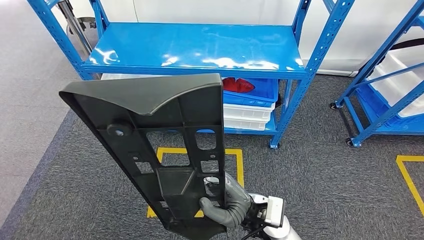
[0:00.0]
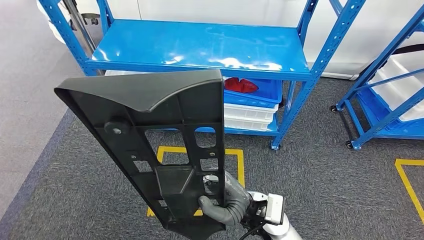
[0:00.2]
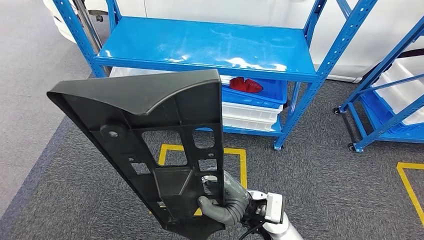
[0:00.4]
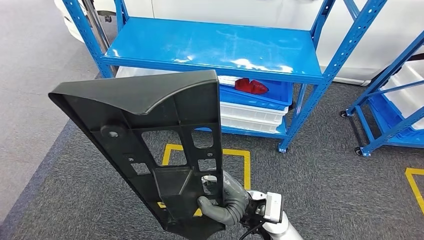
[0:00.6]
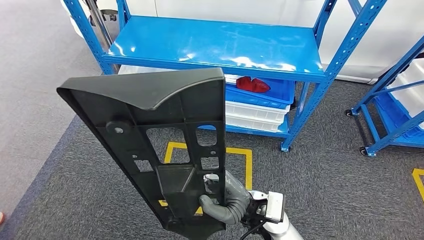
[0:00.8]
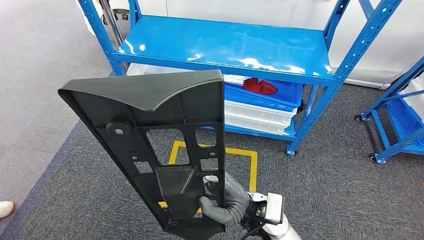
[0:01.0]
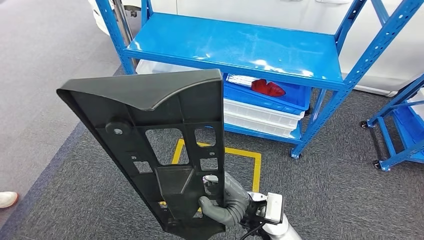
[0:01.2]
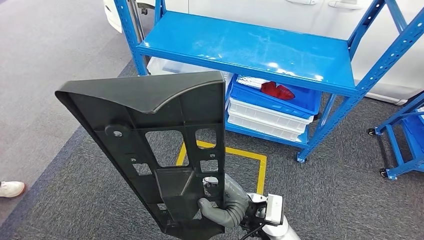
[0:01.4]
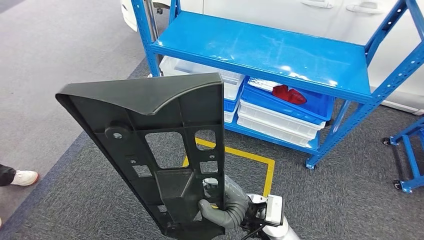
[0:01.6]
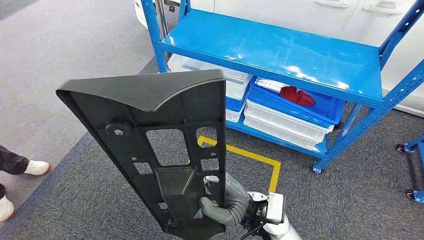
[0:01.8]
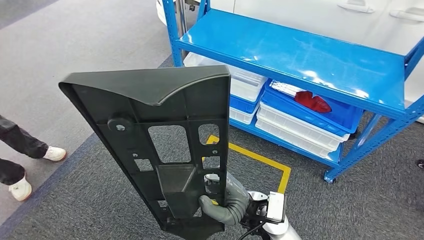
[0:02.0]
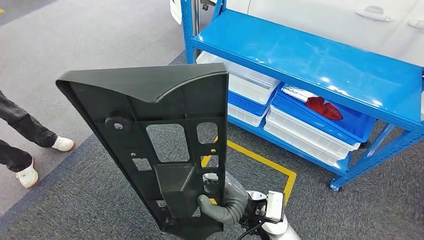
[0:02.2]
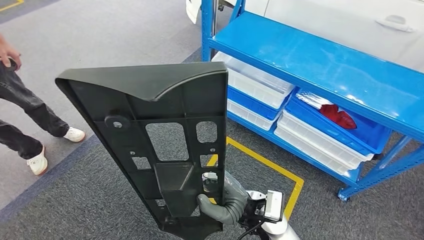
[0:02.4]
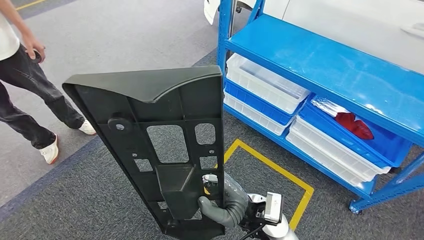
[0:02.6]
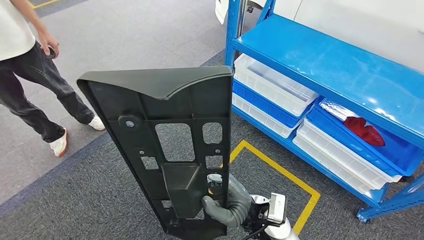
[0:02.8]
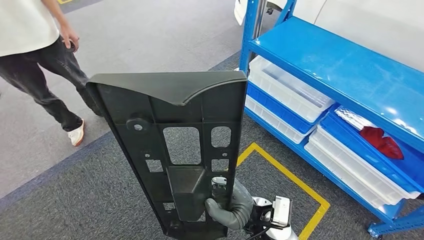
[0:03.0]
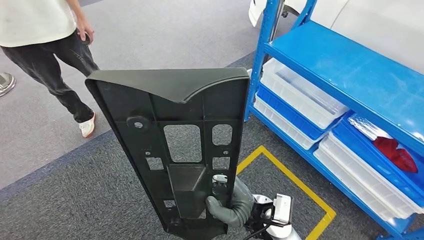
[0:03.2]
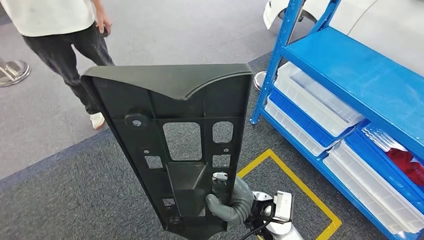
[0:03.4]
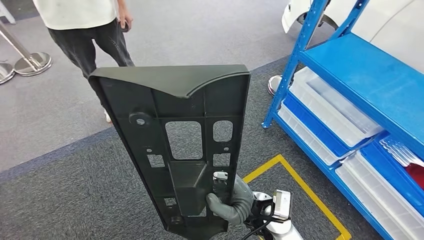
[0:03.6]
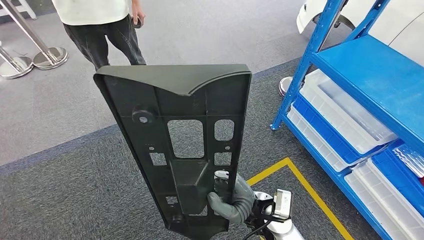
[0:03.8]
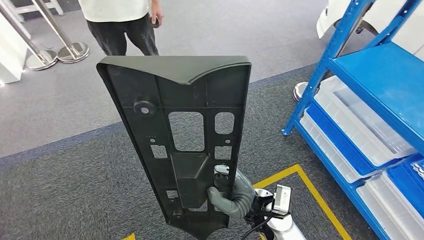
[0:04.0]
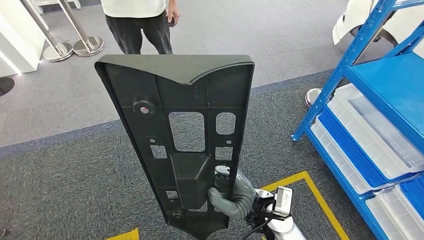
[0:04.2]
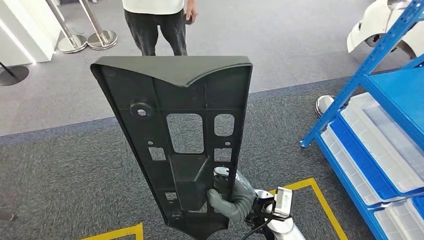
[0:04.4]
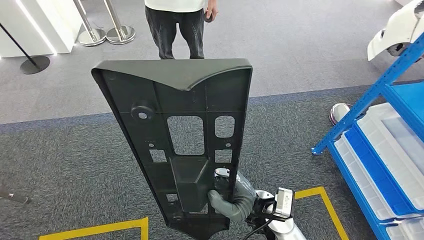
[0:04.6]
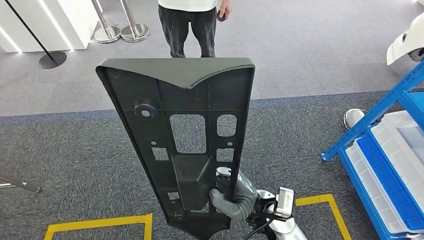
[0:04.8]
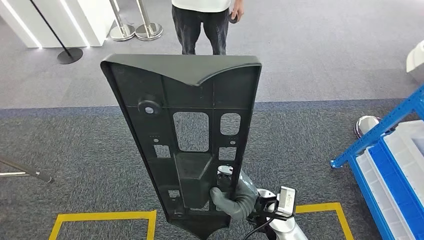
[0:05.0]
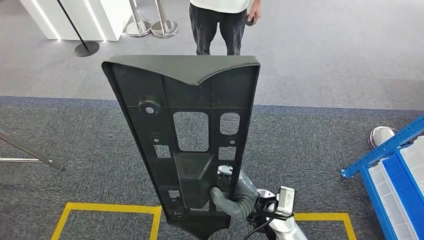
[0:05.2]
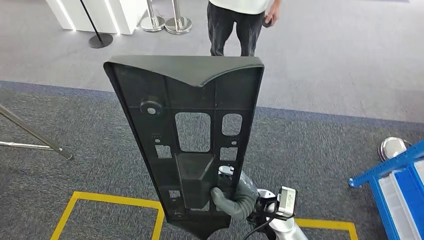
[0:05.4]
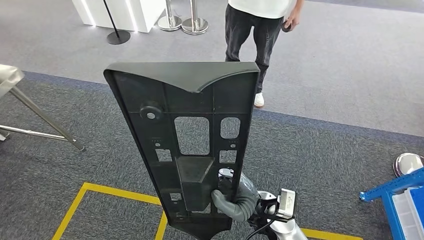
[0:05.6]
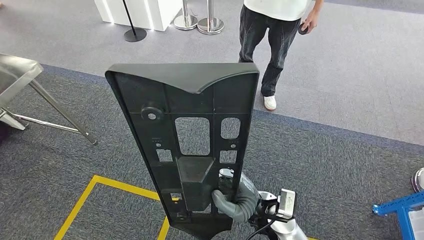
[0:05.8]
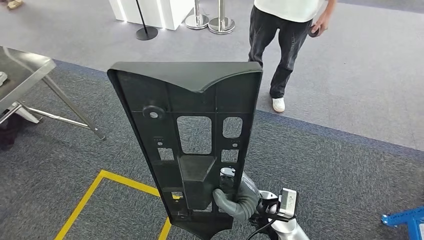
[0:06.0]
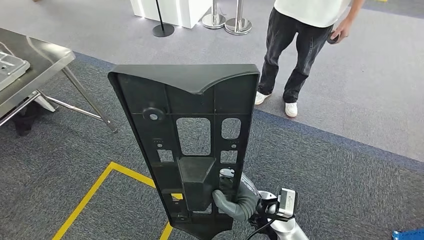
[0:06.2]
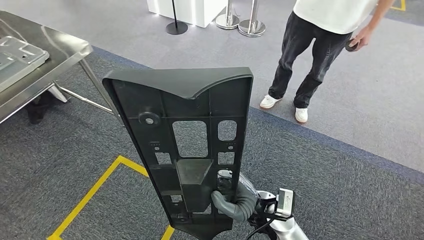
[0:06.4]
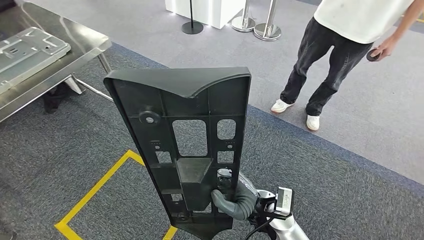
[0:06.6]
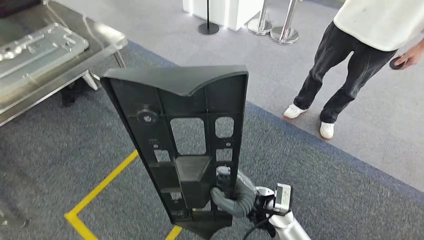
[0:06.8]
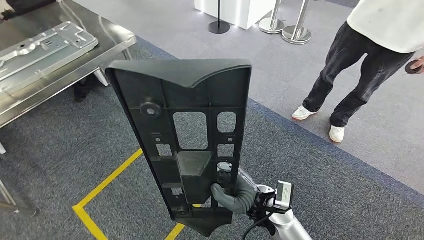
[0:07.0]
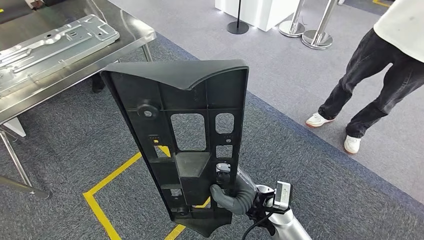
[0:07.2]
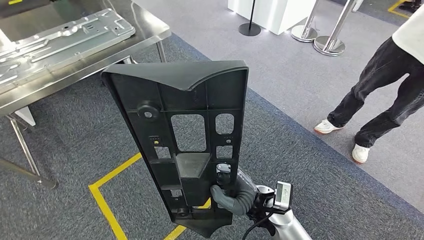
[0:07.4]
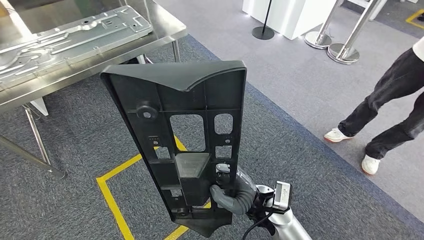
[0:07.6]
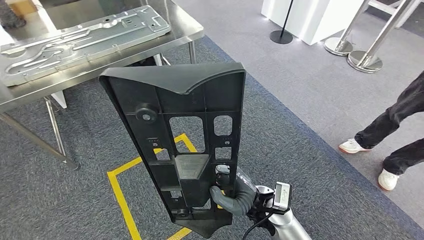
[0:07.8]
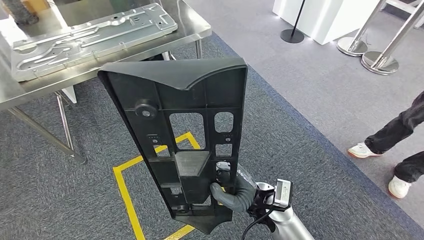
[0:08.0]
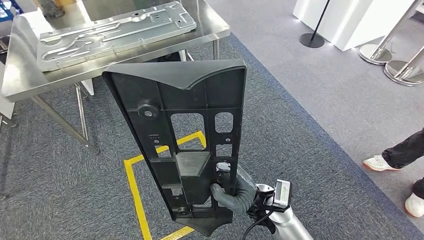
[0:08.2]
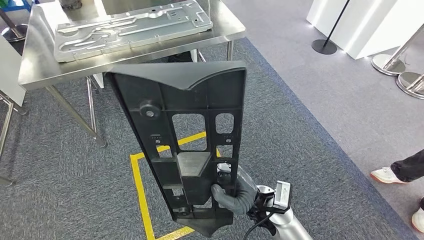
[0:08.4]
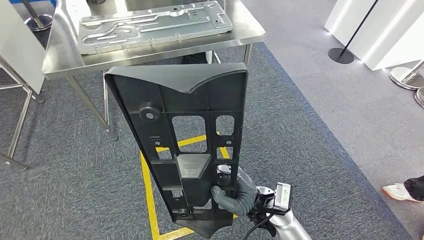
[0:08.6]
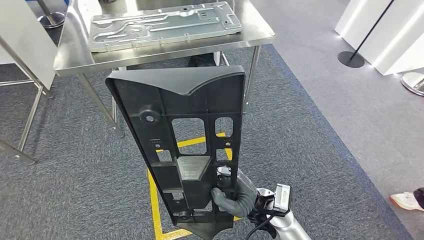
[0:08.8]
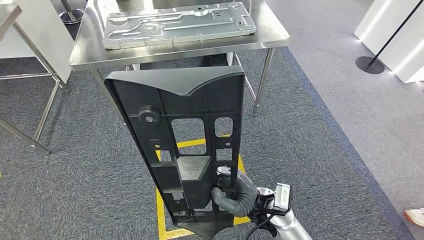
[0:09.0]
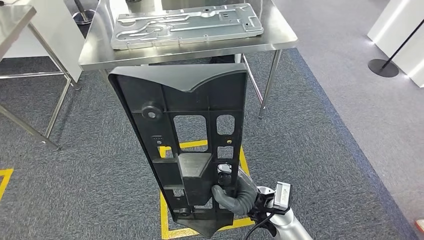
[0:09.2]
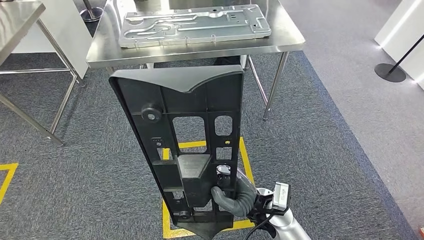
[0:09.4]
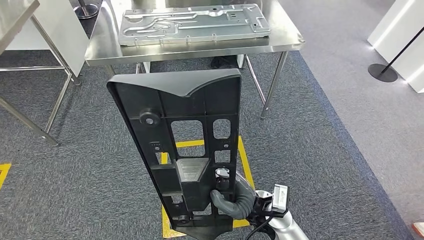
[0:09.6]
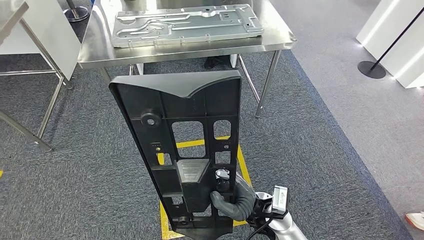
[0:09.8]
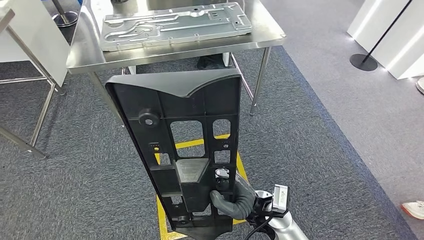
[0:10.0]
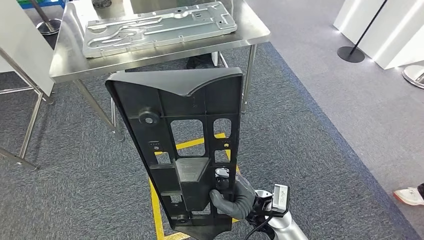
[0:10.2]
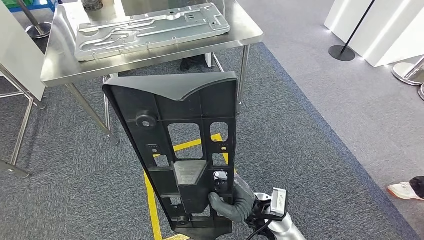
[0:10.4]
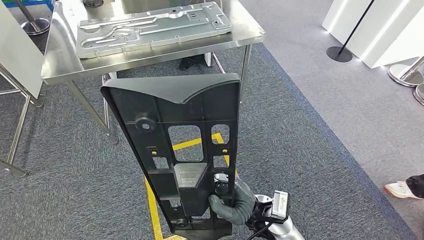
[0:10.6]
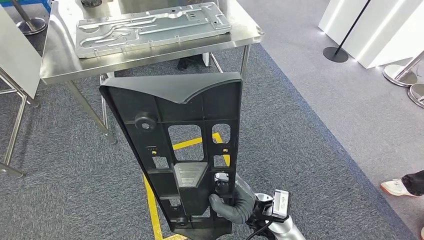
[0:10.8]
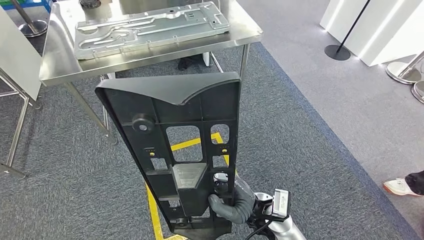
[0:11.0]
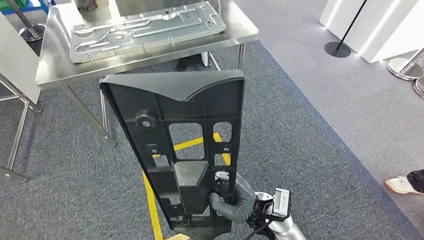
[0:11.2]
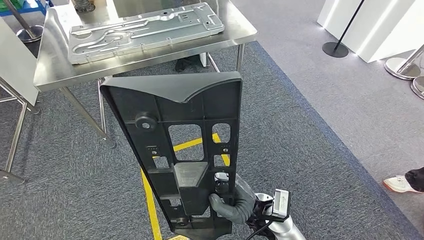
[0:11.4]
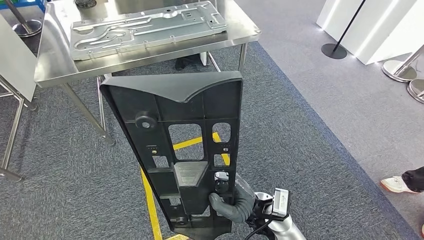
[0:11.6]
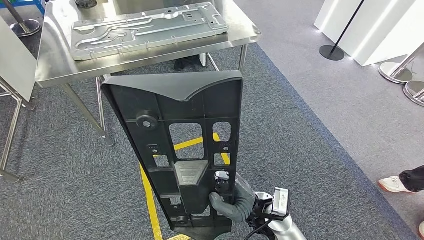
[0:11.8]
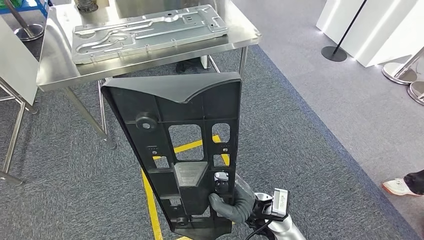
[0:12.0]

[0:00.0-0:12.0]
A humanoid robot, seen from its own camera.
0:10.4 to 0:12.0: Neither hand changes place.

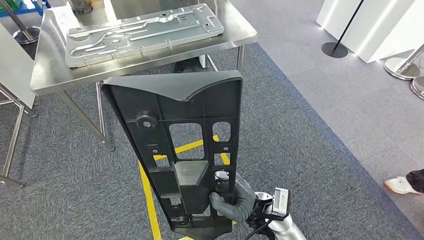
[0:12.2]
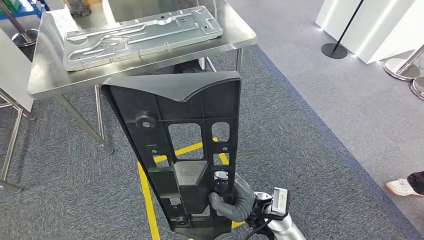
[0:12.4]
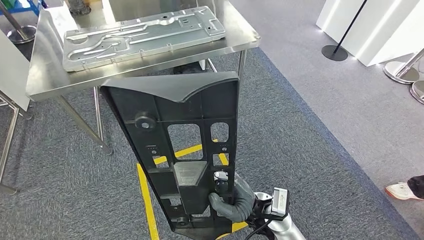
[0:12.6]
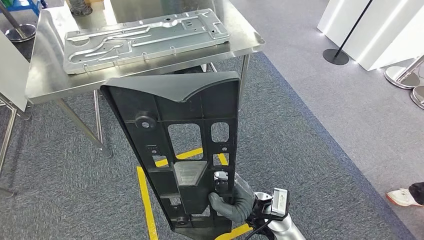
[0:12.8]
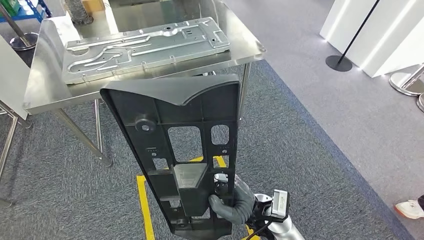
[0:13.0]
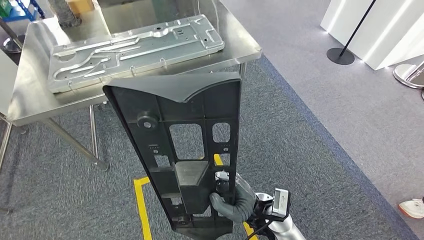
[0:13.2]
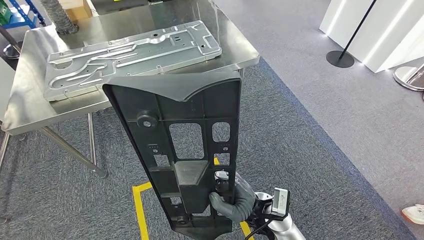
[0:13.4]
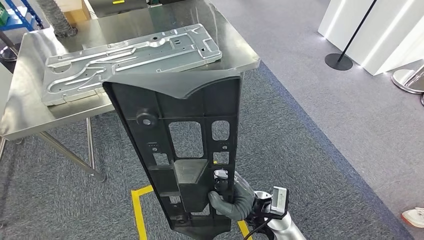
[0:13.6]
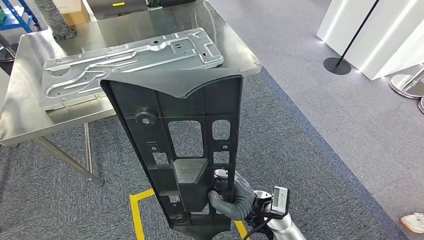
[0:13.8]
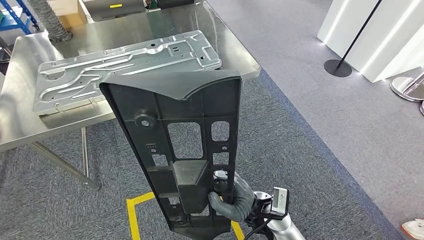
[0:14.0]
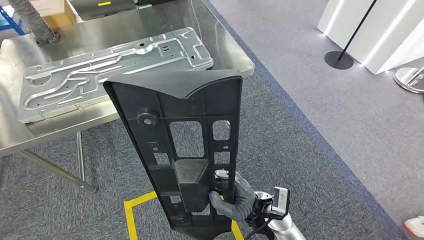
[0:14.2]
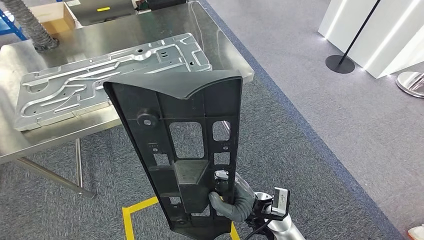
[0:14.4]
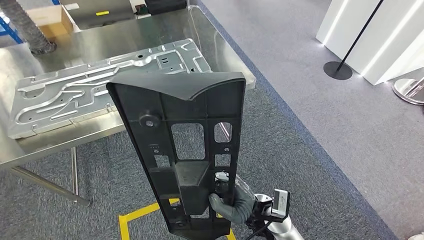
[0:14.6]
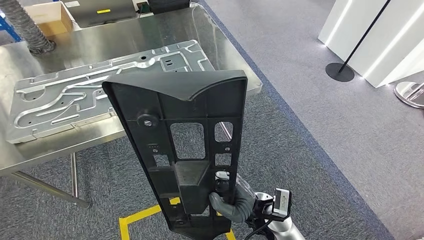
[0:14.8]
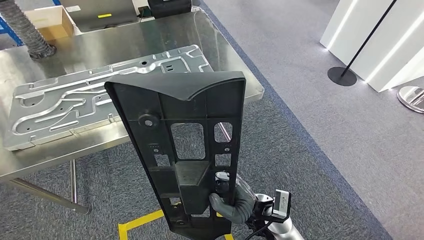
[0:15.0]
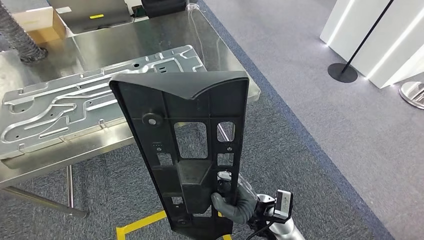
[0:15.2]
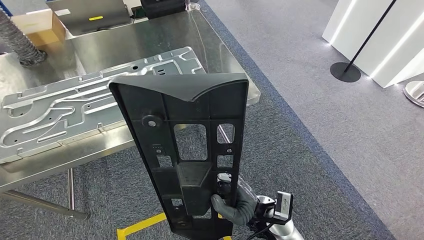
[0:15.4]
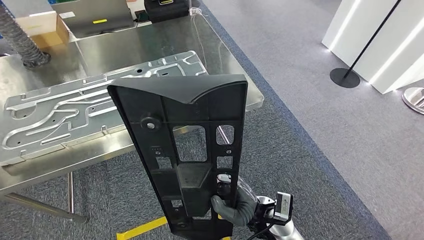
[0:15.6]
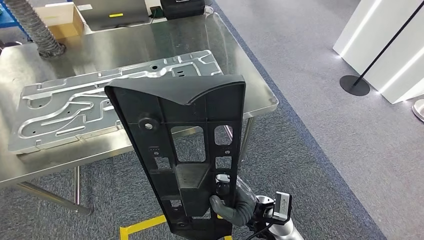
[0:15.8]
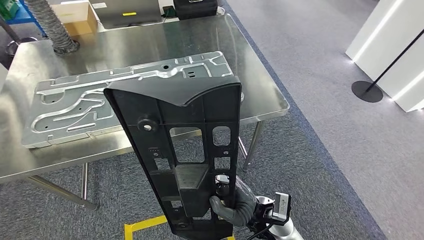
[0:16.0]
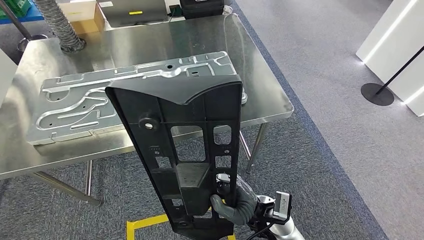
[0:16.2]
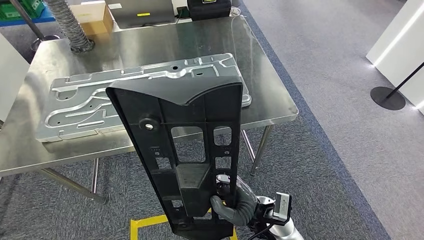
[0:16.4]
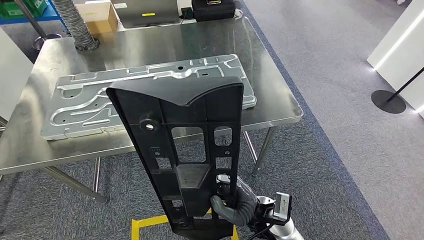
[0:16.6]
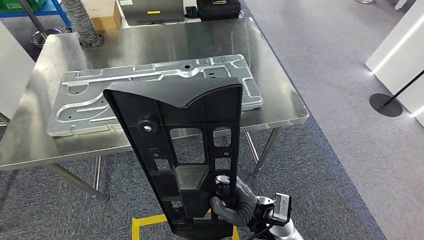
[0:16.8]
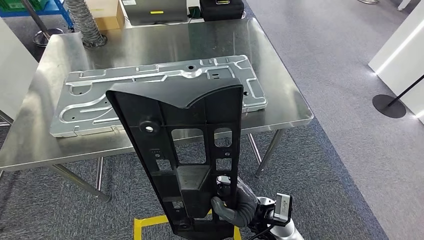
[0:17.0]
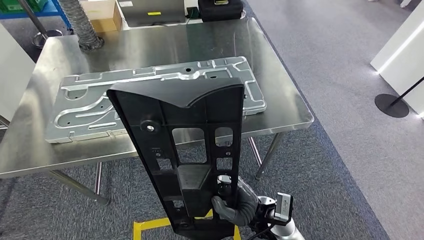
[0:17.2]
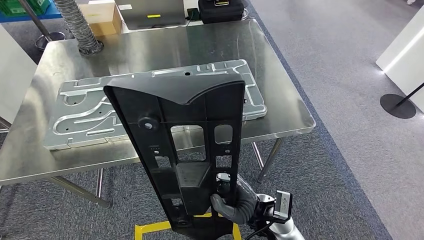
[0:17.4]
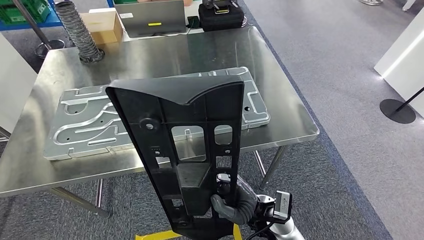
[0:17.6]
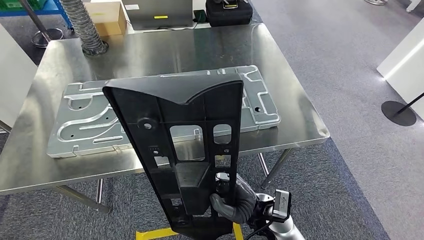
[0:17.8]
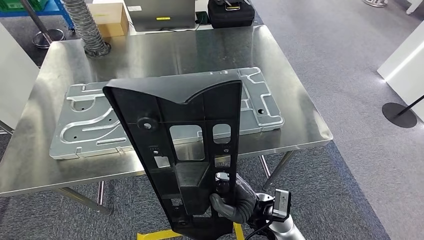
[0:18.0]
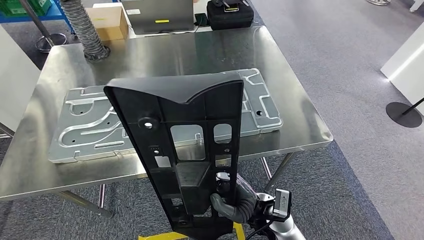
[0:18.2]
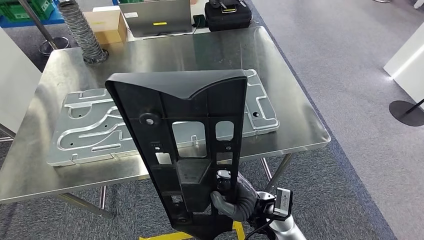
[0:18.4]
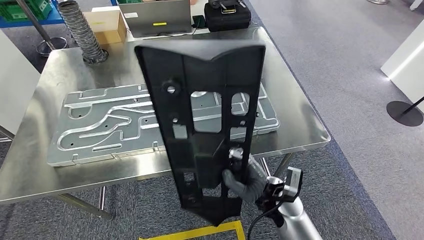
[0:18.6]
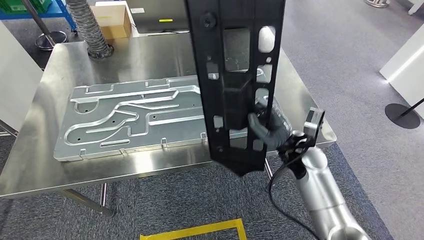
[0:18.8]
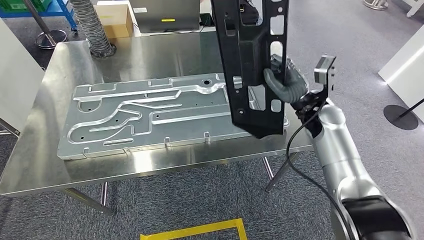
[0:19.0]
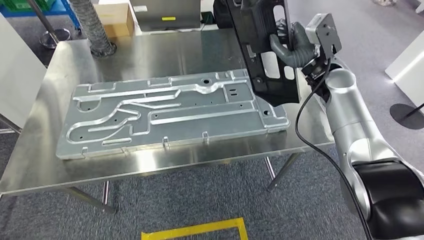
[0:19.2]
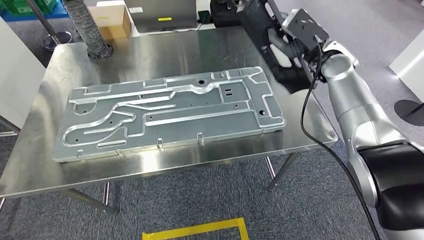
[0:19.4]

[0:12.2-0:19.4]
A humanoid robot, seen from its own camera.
Step, 0:12.2 to 0:18.0: Move the large material to the workbench.
